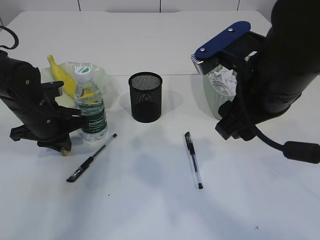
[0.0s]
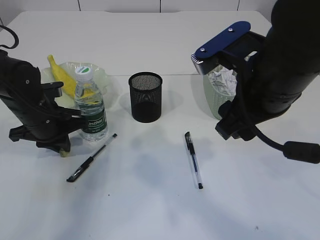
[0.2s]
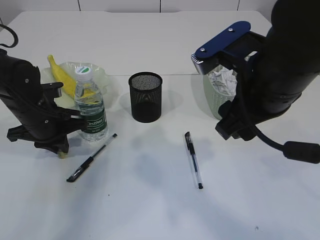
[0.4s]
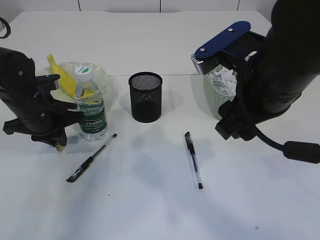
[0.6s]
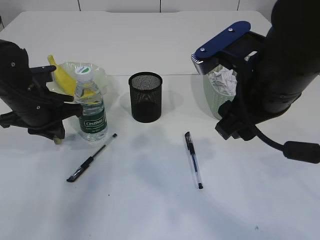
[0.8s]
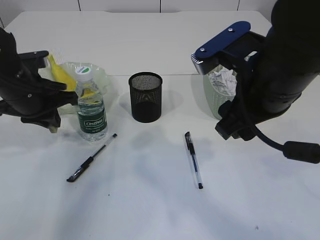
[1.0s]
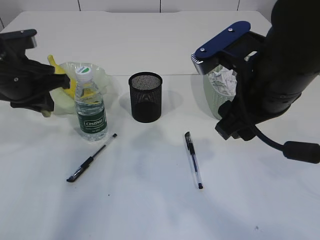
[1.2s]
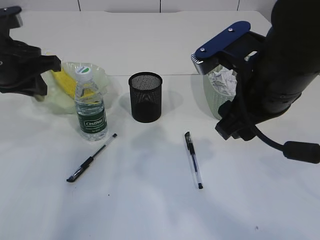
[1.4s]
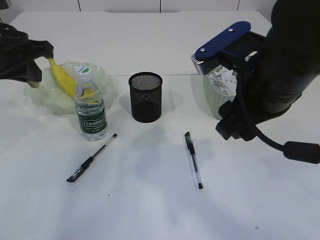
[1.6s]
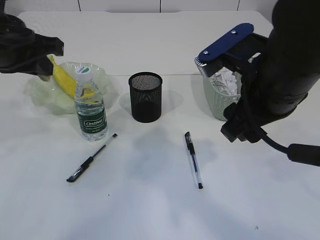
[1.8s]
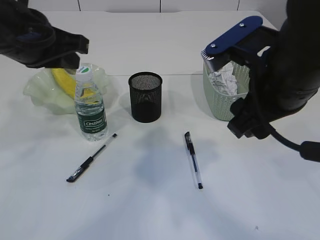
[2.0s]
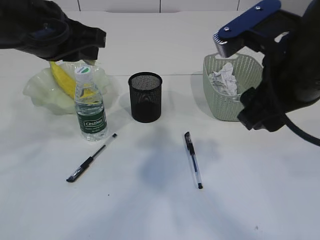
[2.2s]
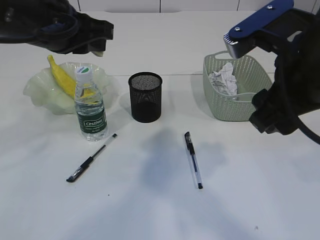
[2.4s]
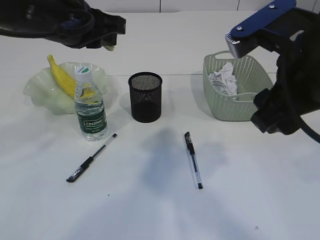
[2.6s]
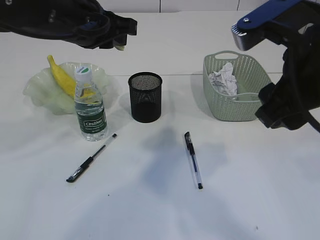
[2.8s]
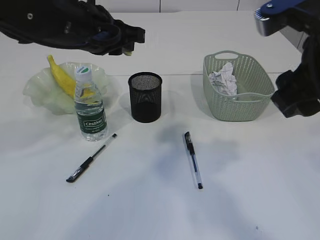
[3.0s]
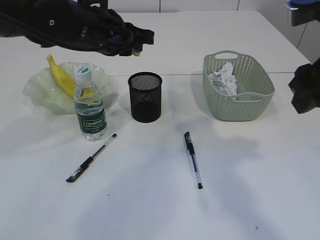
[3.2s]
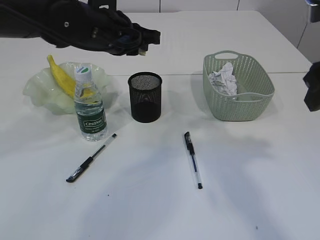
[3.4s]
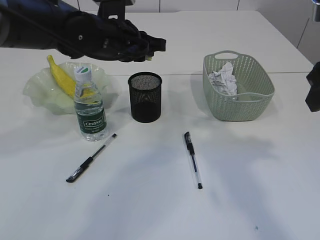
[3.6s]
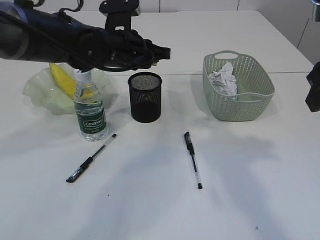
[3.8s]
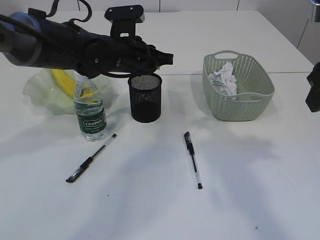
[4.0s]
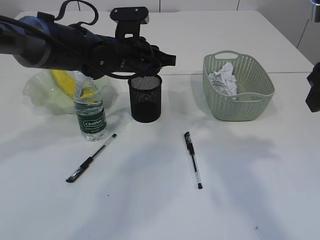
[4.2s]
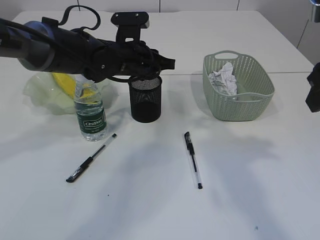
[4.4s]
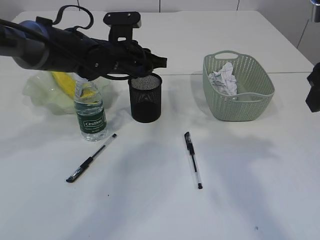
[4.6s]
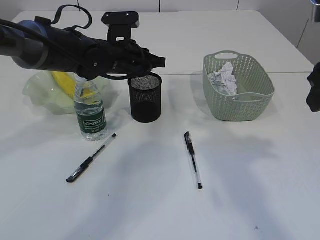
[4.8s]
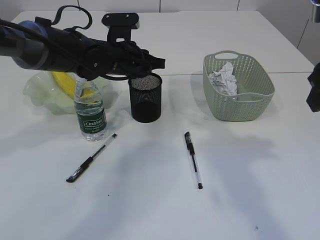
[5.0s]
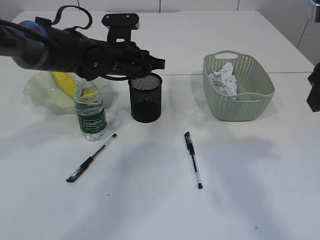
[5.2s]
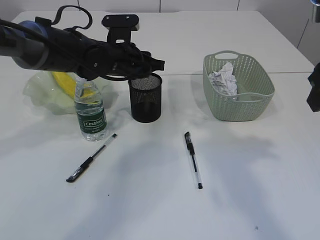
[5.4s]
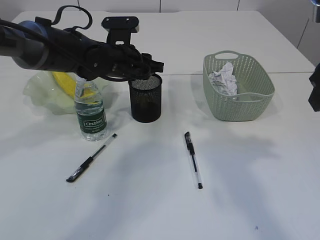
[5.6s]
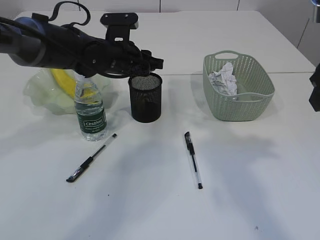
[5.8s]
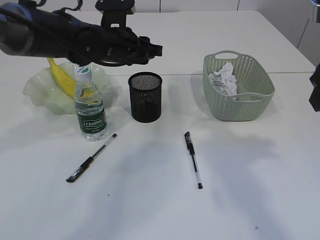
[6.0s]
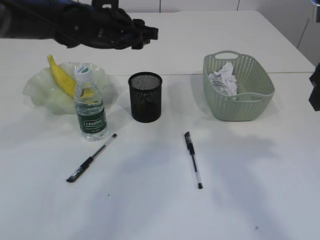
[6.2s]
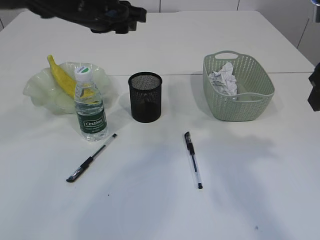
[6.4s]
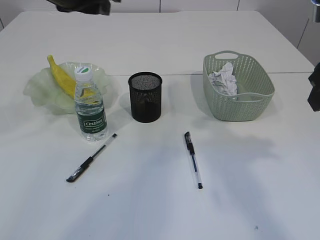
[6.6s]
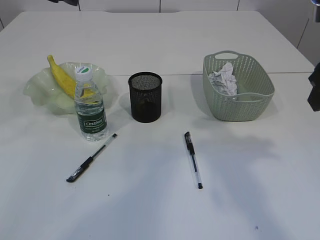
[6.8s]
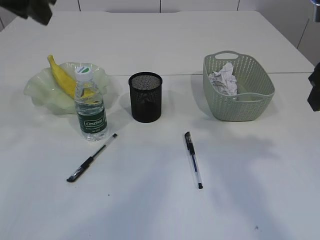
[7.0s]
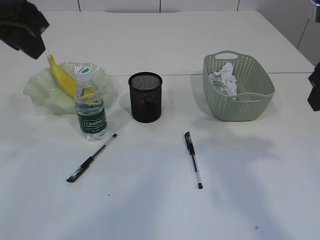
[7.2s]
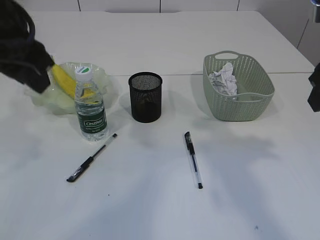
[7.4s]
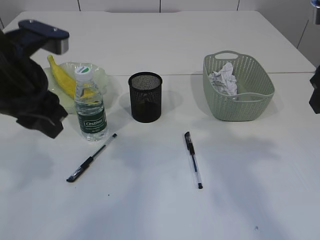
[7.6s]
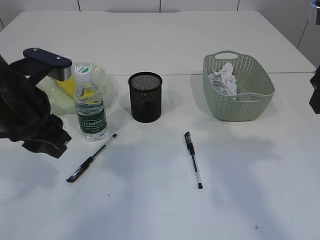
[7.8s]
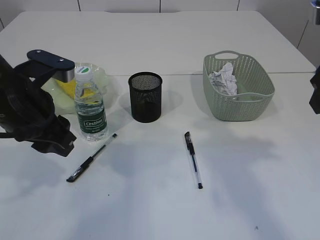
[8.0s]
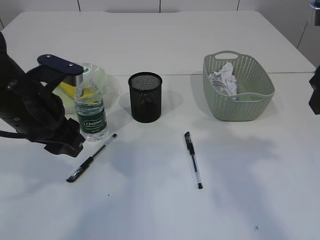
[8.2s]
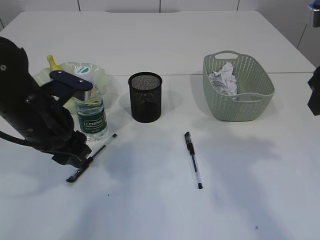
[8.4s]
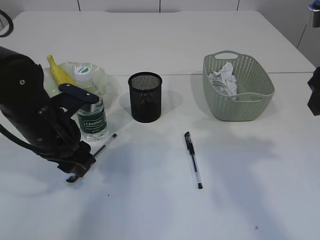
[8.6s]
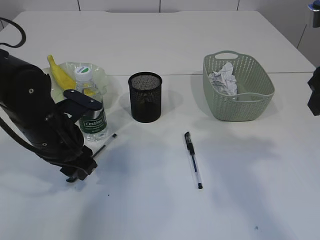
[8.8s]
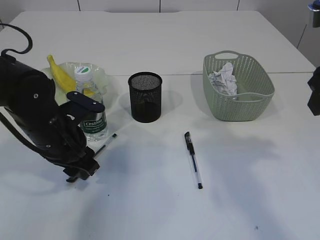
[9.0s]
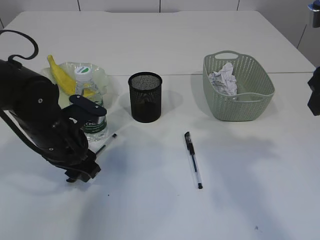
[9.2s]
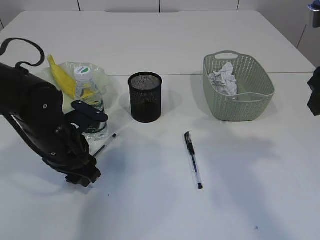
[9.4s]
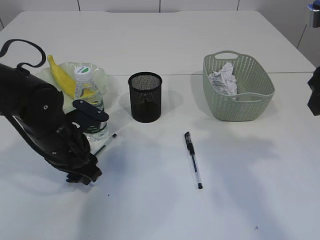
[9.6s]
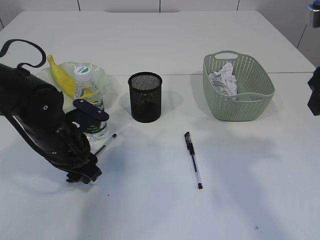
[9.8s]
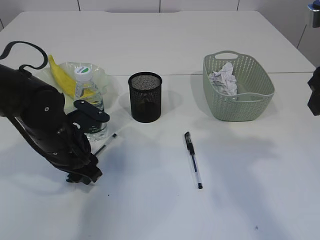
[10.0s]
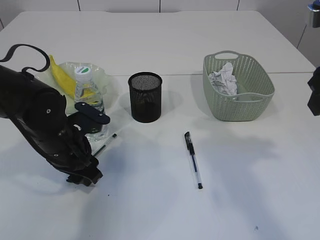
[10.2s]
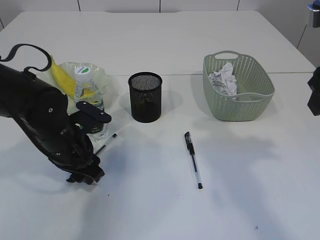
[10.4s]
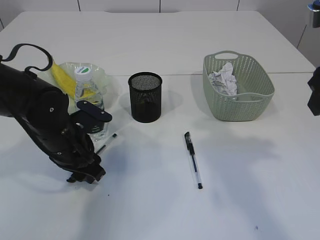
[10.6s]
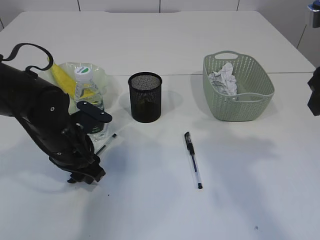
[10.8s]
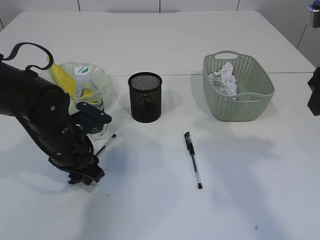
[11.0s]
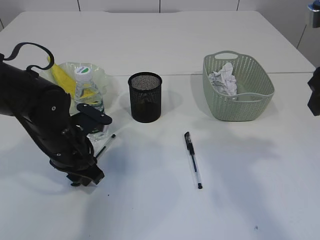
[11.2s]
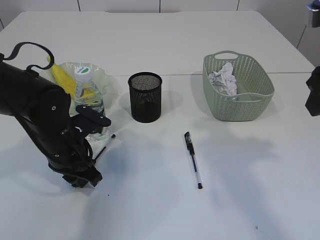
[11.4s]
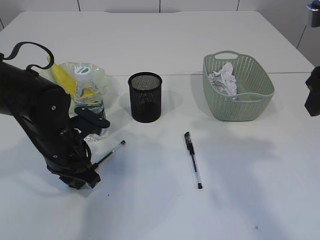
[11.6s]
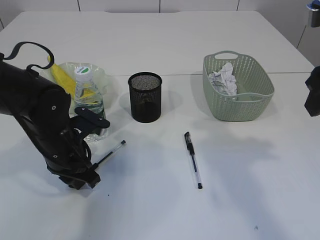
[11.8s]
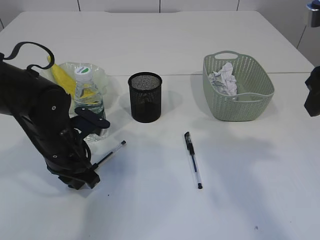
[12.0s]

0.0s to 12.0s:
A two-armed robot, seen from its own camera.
Step, 1.2s to 5.8s: Place the eraser into the pen holder.
0.0s to 1.6s: The left gripper heads upward, covering some 15 cm.
1.6s to 3.0s: The left gripper shifts about 10 cm to the right. The right gripper is displaced to the right by about 5 cm.
3.0s to 4.4s: The right gripper travels to the right by some 5 cm. The left gripper moves downward and forward, approximately 10 cm.
4.4s to 6.0s: The left gripper opens.
6.0s to 7.6s: The left gripper goes roughly 20 cm backward and to the left.
7.6s to 9.0s: The left gripper goes roughly 15 cm downward.
9.0s to 10.4s: The grippers make only small movements.
10.4s to 12.0s: The left gripper closes.

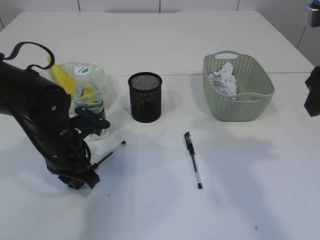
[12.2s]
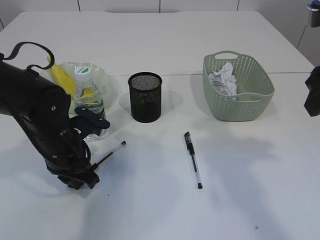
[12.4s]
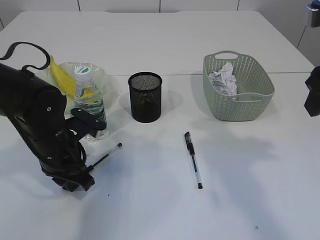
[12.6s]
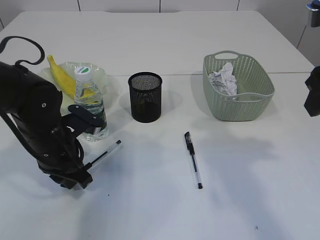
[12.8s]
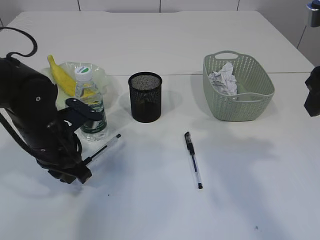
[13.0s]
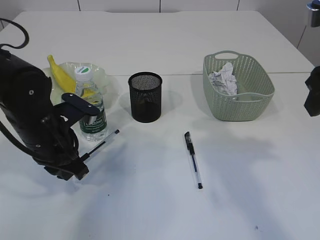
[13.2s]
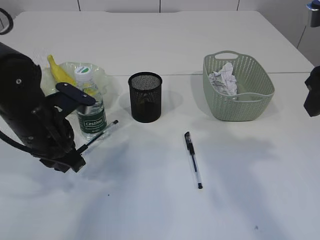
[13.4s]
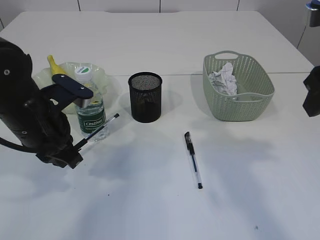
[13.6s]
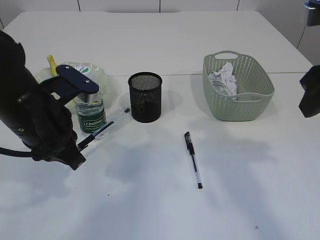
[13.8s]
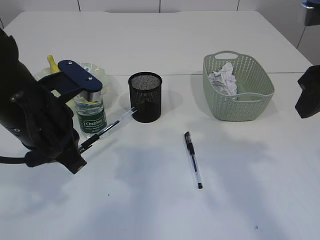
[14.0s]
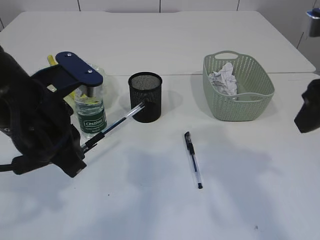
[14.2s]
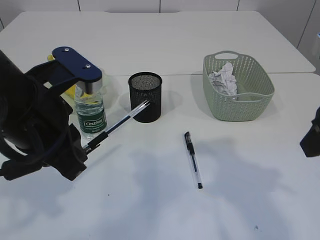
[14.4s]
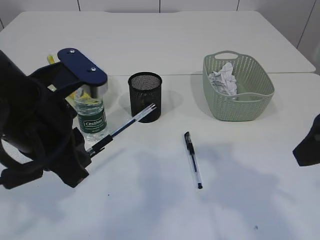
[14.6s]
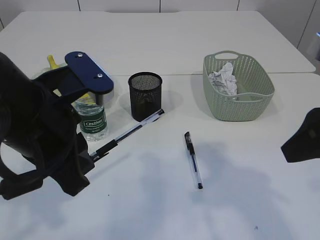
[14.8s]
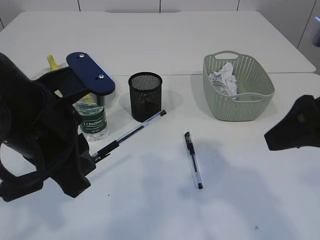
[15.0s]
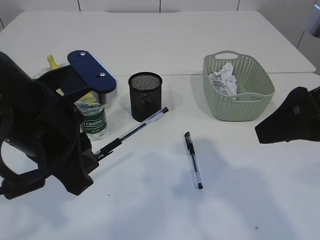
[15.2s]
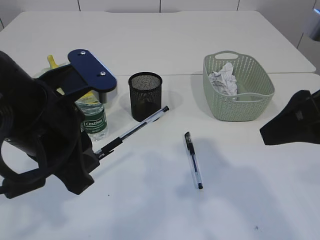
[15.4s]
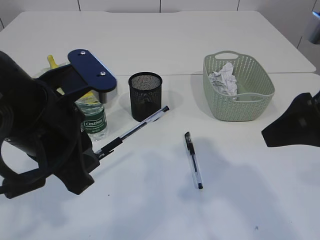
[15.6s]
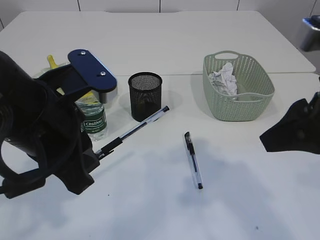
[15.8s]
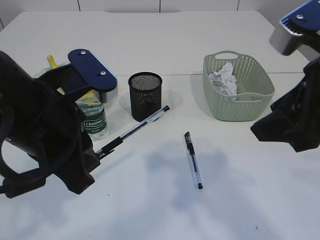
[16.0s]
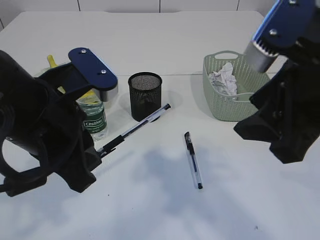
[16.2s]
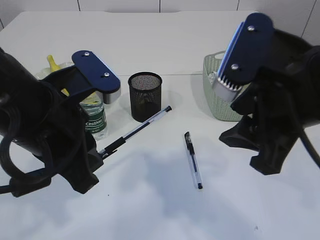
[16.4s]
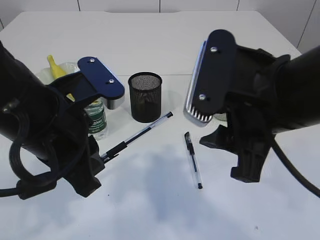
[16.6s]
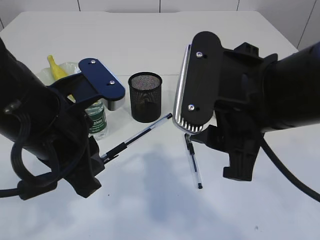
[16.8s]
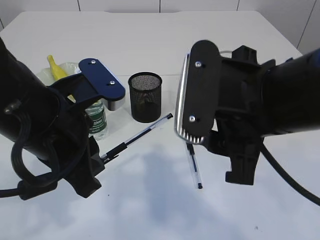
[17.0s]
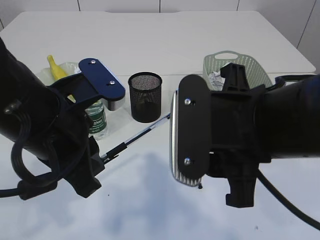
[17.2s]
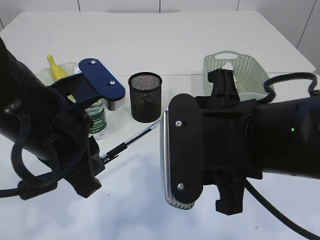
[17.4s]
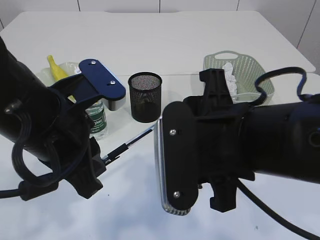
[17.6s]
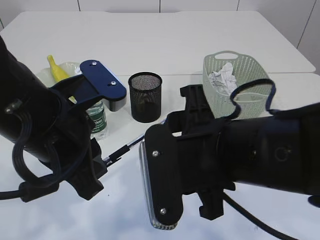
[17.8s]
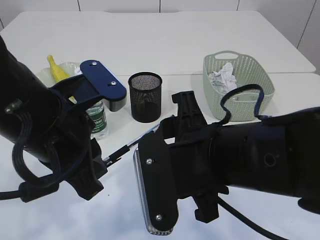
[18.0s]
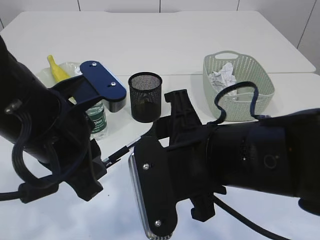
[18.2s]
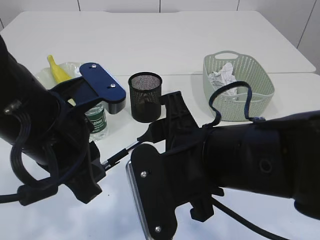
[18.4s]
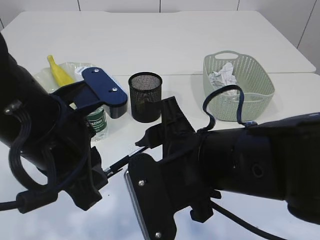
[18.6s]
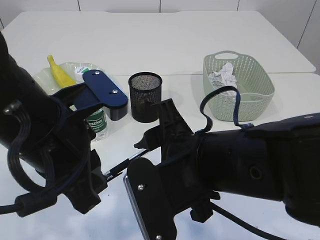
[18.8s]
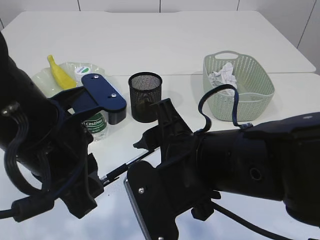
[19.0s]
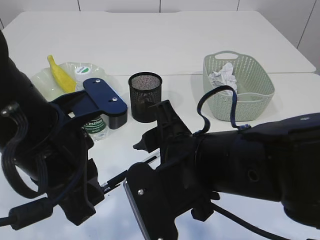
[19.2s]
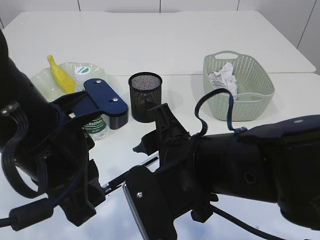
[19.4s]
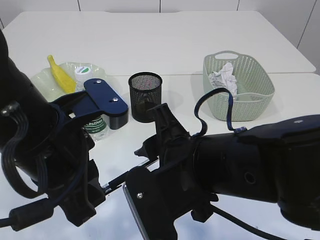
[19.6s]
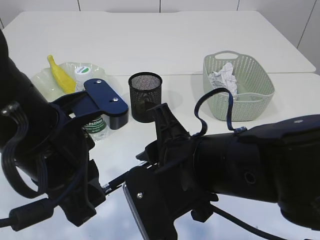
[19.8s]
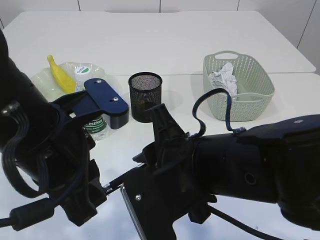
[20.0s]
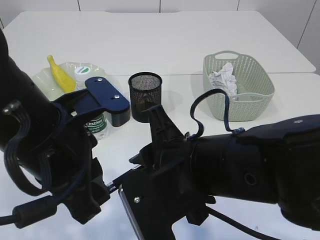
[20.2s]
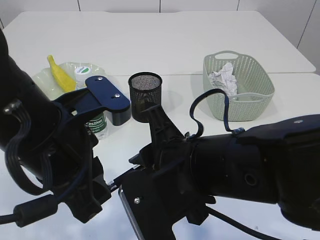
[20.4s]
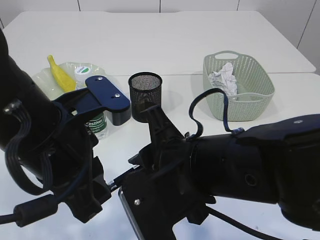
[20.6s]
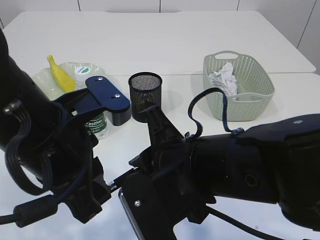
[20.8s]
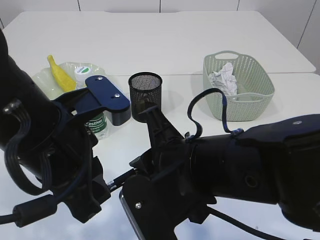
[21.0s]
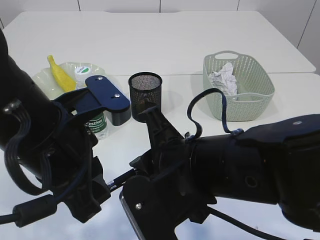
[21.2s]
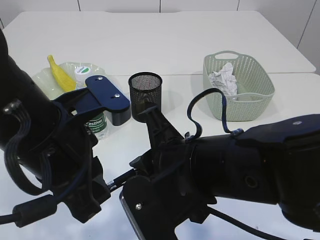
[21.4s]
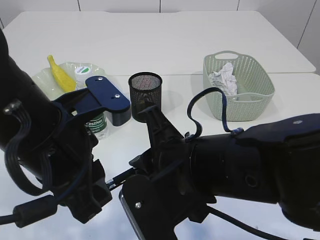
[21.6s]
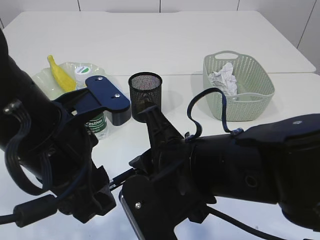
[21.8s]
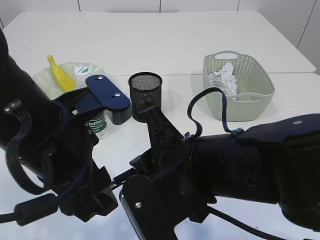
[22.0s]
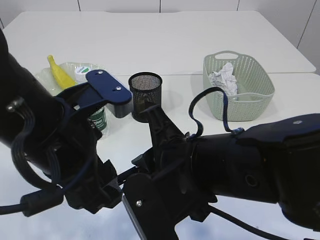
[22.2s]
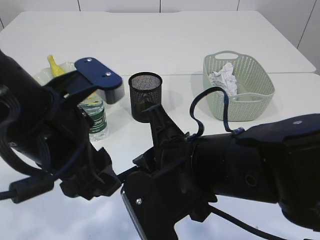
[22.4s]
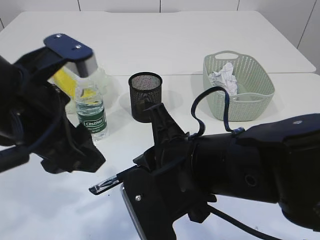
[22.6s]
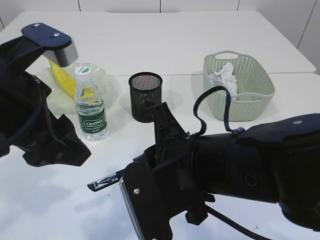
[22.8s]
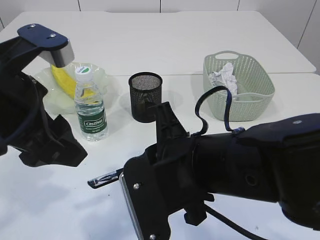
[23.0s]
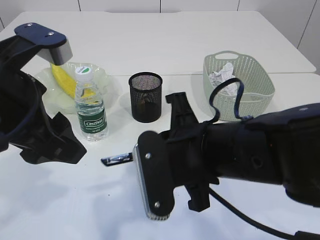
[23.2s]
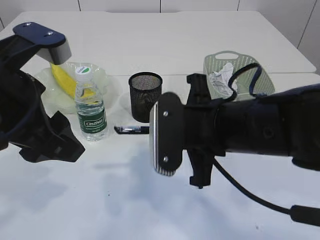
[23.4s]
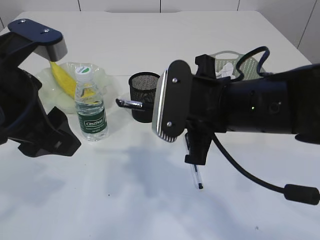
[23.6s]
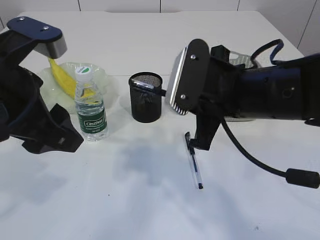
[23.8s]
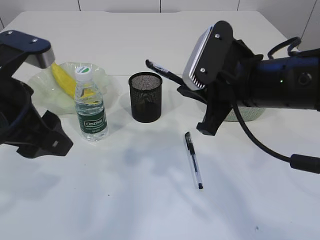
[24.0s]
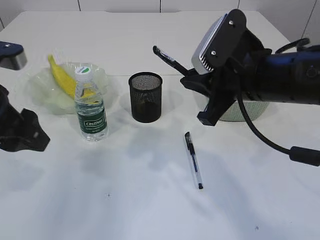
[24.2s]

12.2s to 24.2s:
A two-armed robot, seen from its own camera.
Step, 14.0s to 22.8s: transfer the pen to the right arm.
12.2s to 13.8s: The left gripper moves upward, about 10 cm.
13.8s to 15.2s: The left gripper is displaced backward and upward by about 10 cm. The right gripper travels backward by approximately 5 cm.
15.2s to 16.6s: The right gripper goes approximately 10 cm to the left.
16.6s to 18.2s: The right gripper moves downward and to the left, some 10 cm.
18.2s to 19.8s: The right gripper closes its fingers.
19.8s to 21.2s: The grippers stay close to where they were, moving slightly.
21.2s to 22.6s: The left gripper opens its fingers.
22.6s to 24.2s: The left gripper goes approximately 10 cm to the left. The right gripper goes some 15 cm forward and to the right.
